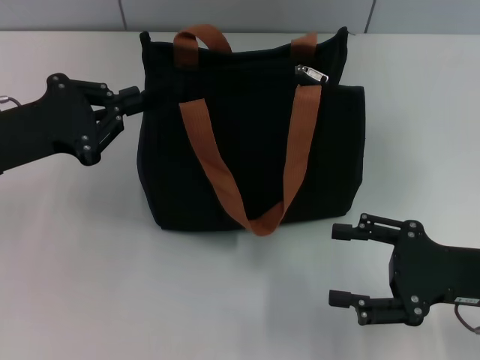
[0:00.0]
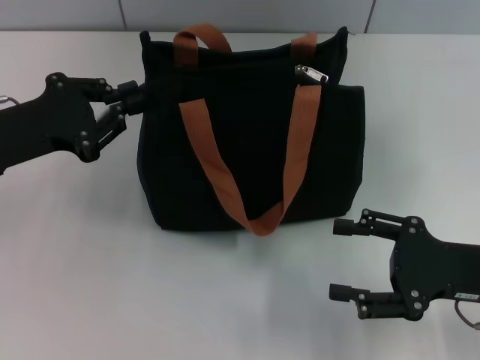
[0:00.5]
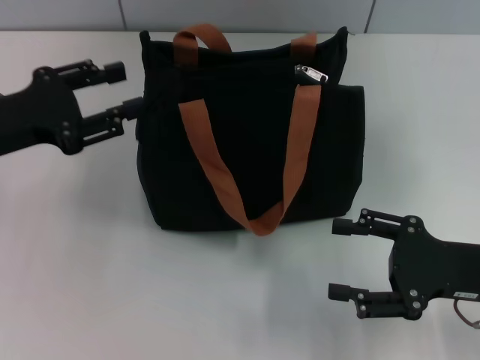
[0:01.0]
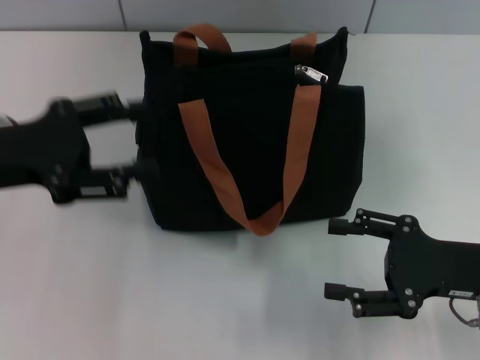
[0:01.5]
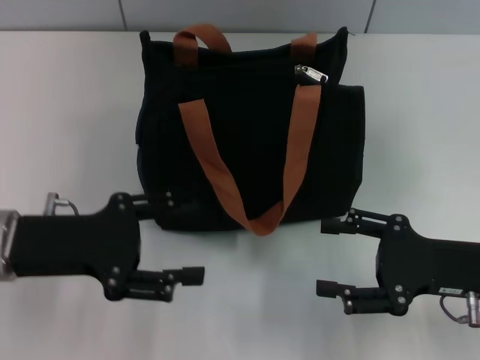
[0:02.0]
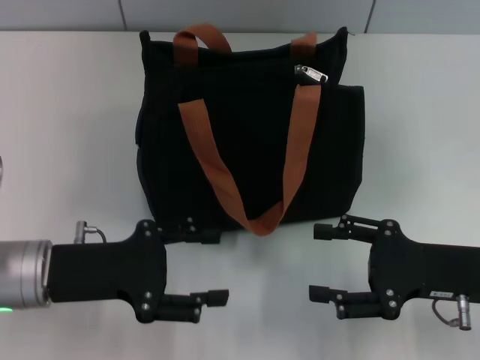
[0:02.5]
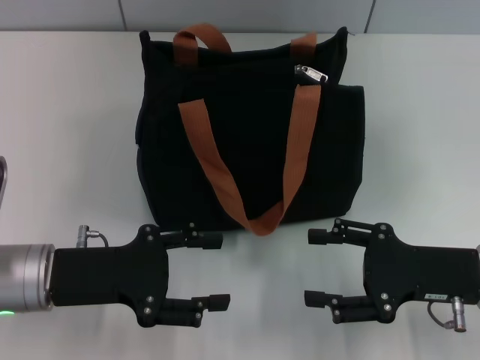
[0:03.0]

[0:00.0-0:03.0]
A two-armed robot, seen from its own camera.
0:00.0 to 0:01.5: The left gripper opens its fingers.
0:01.5 to 0:03.0: The left gripper heads downward and to the right, covering approximately 10 cm.

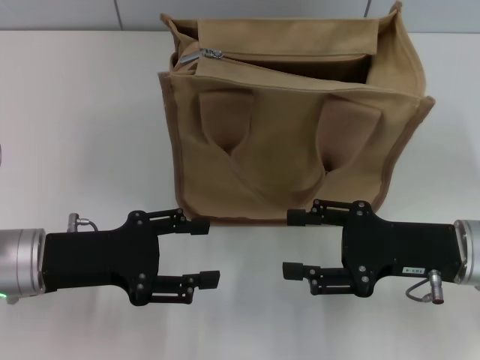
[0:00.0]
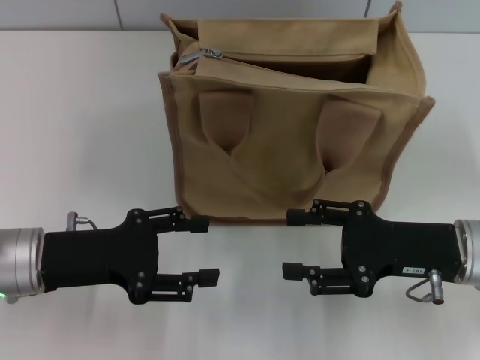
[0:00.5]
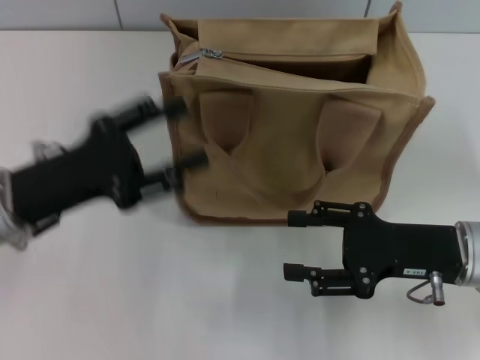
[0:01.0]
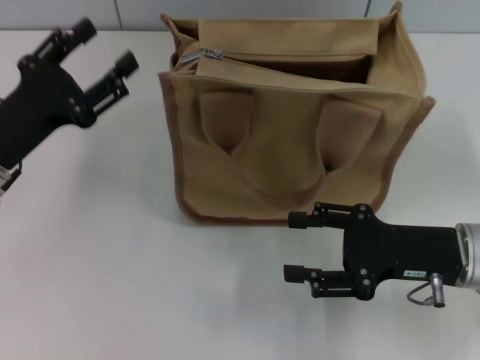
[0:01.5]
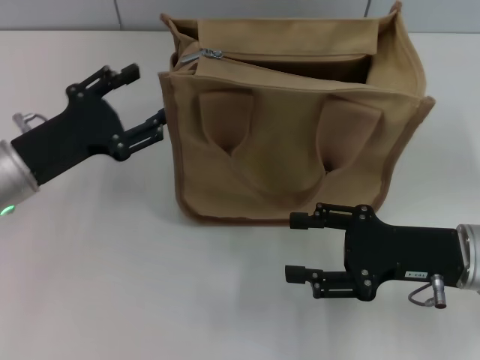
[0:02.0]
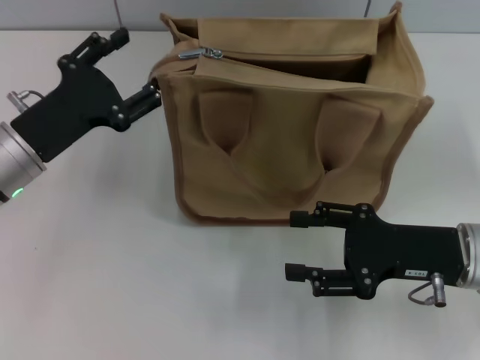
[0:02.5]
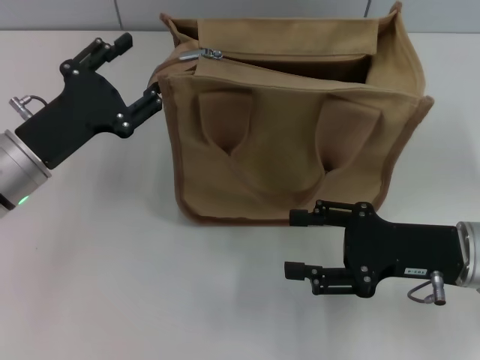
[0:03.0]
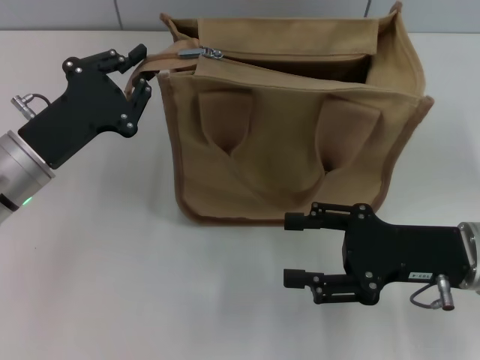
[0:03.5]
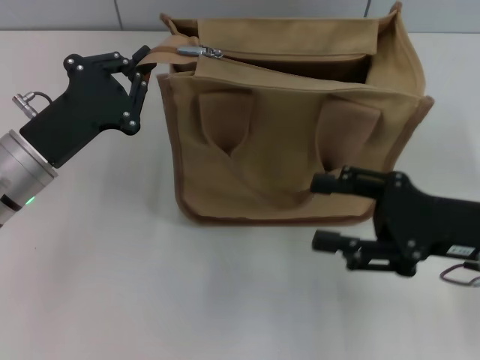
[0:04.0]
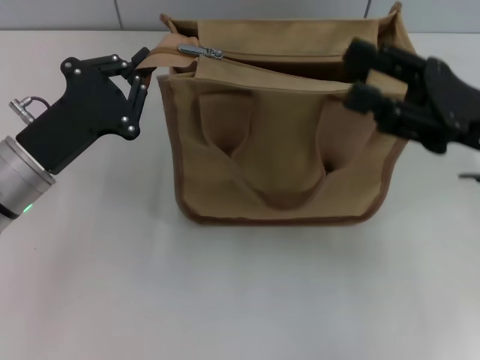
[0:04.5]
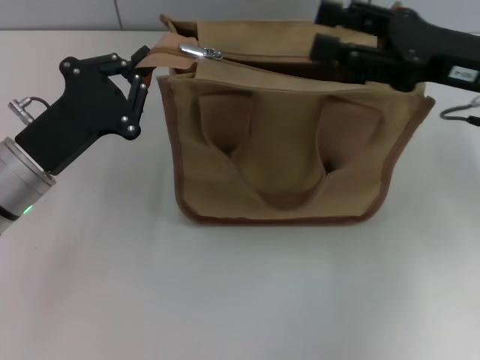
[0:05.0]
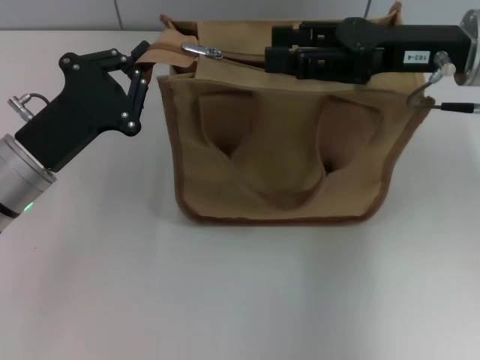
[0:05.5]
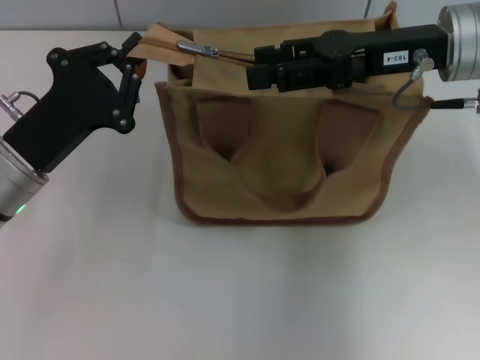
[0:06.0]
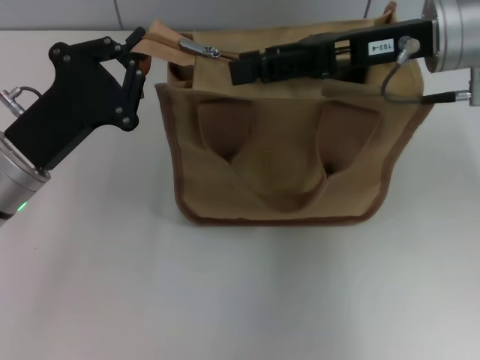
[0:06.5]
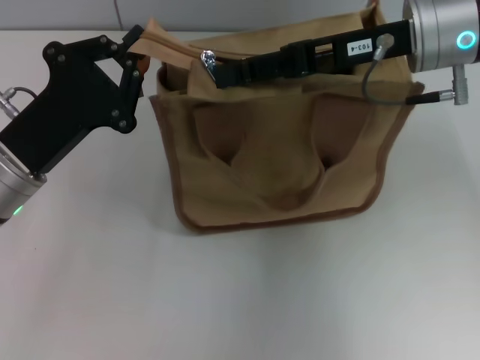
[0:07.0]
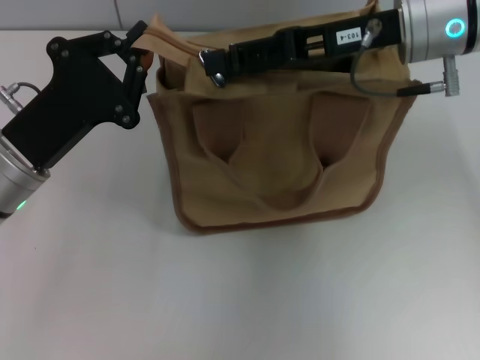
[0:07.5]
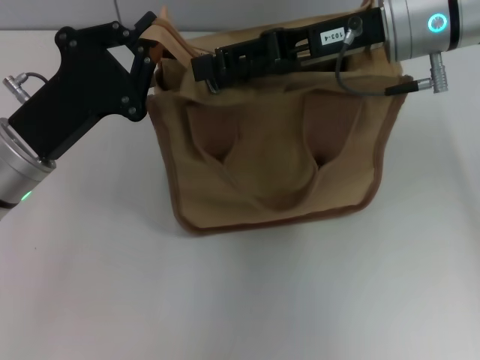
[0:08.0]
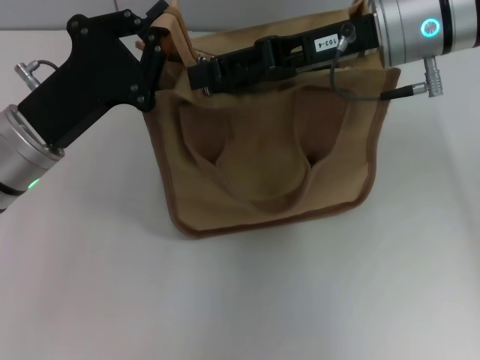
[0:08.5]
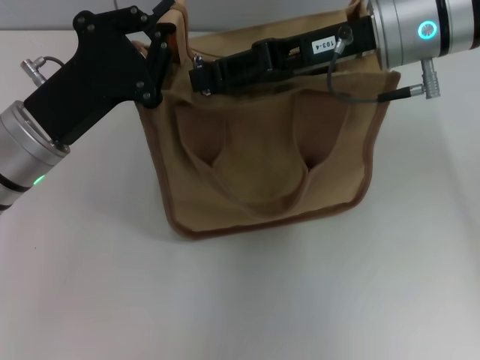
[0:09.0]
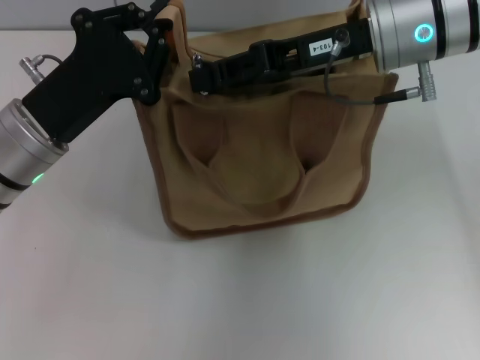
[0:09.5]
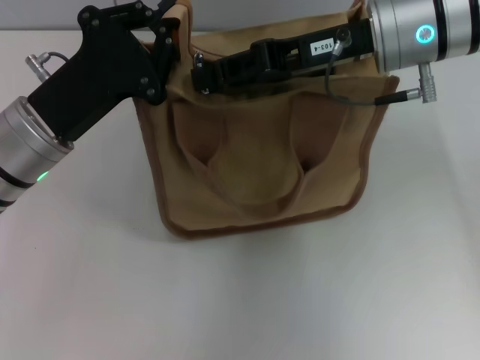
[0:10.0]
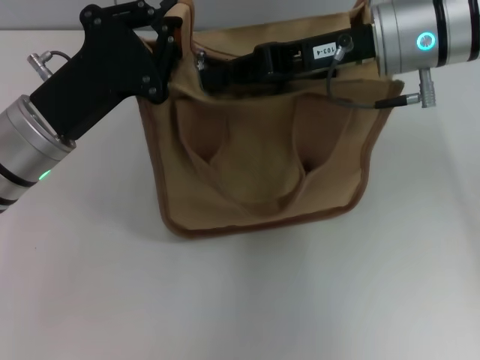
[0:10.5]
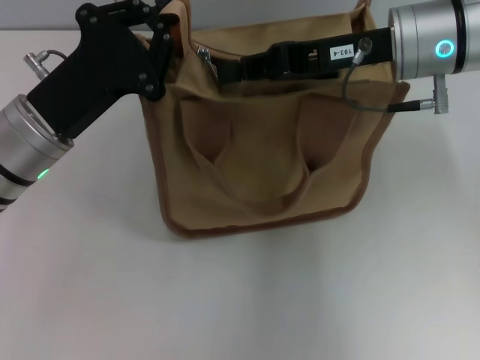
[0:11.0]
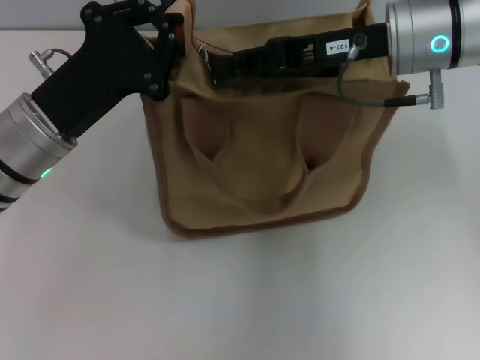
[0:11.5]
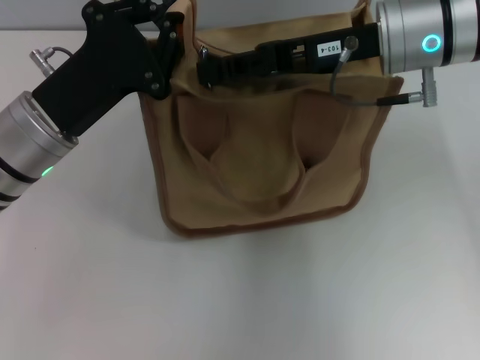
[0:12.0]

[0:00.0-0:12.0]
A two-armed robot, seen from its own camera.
0:00.0 to 0:02.0: The left gripper ends up some 5 cm from where it was.
0:02.0 to 0:04.0: The left gripper closes.
0:04.0 to 0:06.0: The right gripper heads forward, upward and to the left, covering about 15 cm.
0:06.0 to 0:08.0: The right gripper moves some 5 cm.
0:08.0 to 0:10.0: The right gripper closes up.
0:10.0 to 0:12.0: The right gripper closes and opens again.

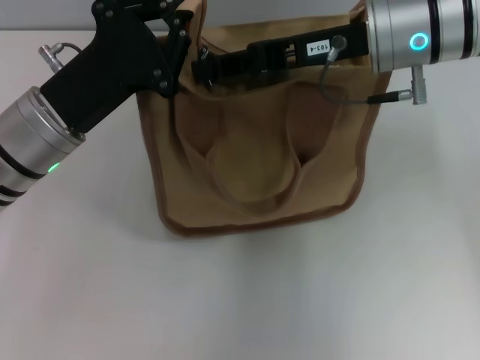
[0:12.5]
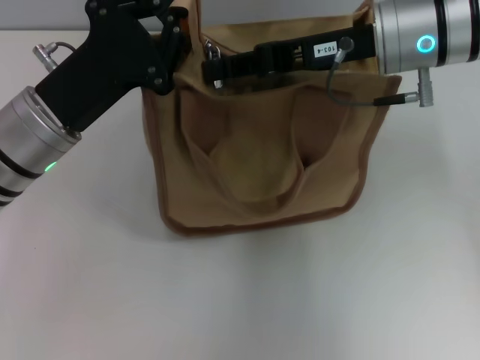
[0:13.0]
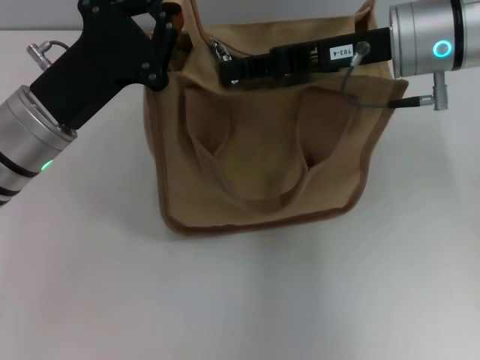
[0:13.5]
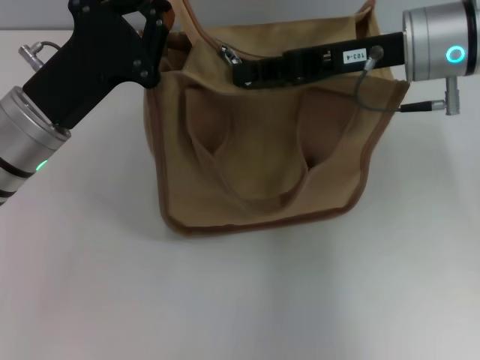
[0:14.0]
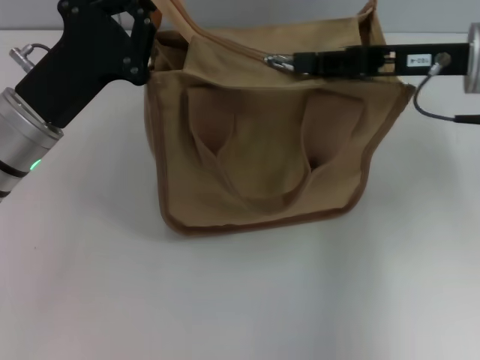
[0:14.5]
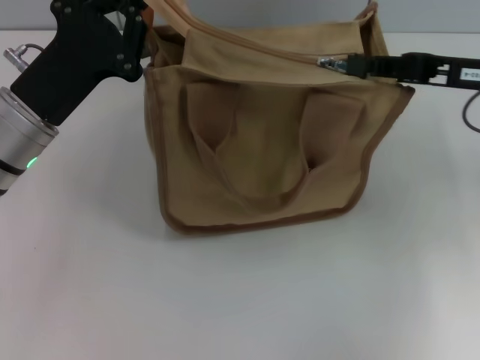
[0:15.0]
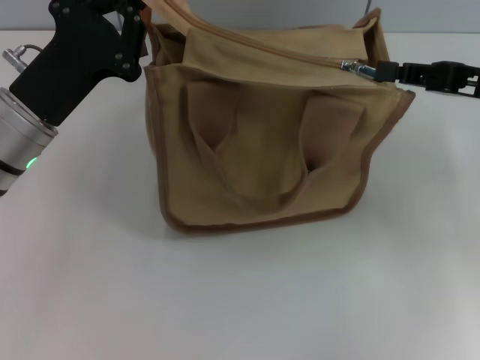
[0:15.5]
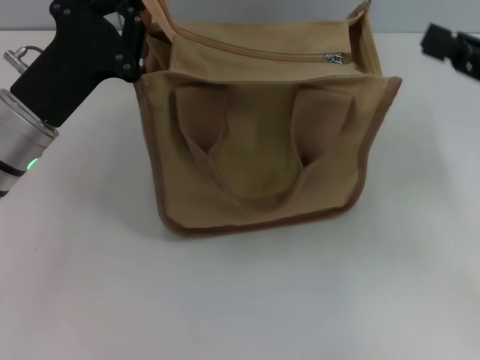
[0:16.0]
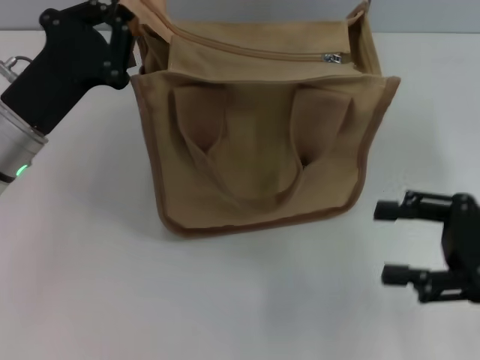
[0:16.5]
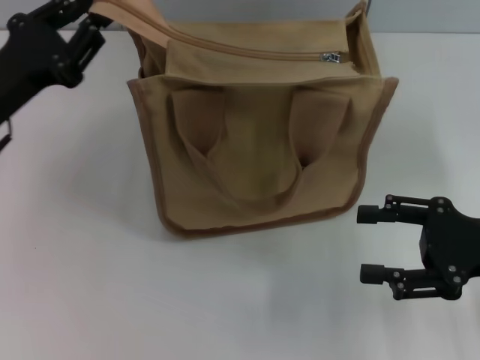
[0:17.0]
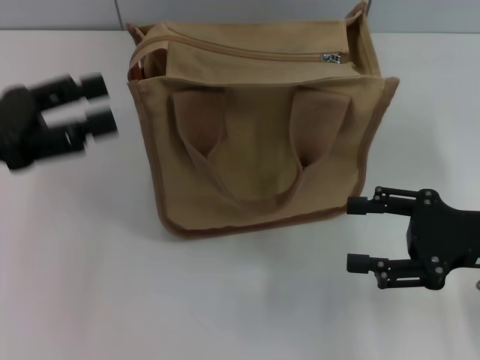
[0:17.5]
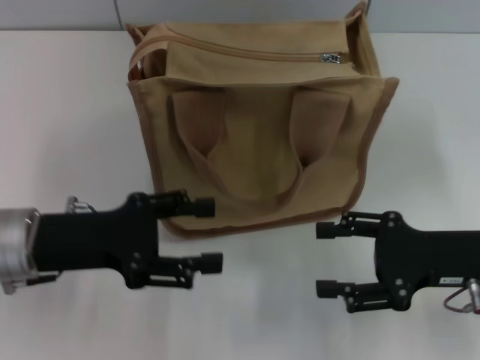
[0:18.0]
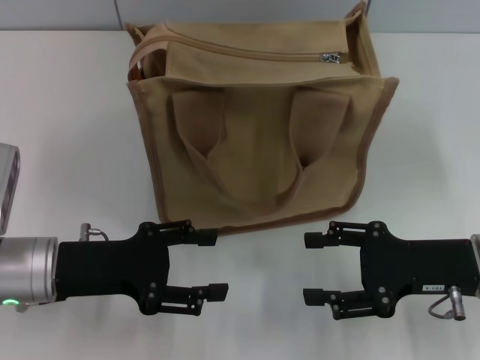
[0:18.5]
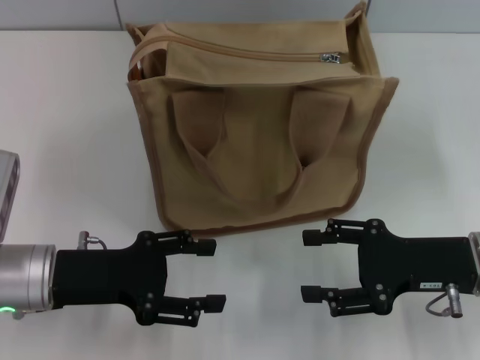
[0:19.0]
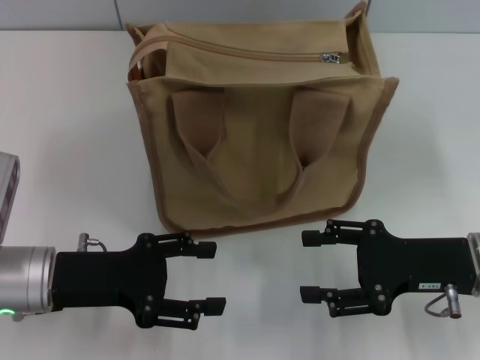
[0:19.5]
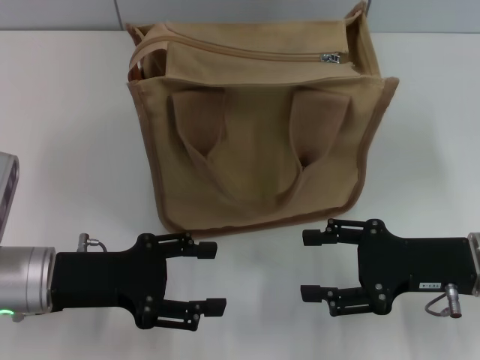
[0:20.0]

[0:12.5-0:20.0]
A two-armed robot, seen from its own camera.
Step, 0:12.5 to 0:15.5: Pull up the zipper with your right hand.
Step, 0:16.0 to 0:17.5: Grab the zipper with your left hand.
0:12.5 to 0:14.5: The right gripper heads to the right, covering approximately 10 cm.
0:14.5 to 0:16.5: The right gripper is displaced backward, to the right and downward by roughly 15 cm, and opens its fingers.
0:16.5 to 0:18.0: The left gripper moves backward, some 5 cm, reaches roughly 10 cm to the left, then returns, and opens up; the right gripper moves some 5 cm.
0:18.0 to 0:20.0: The grippers make only small movements.

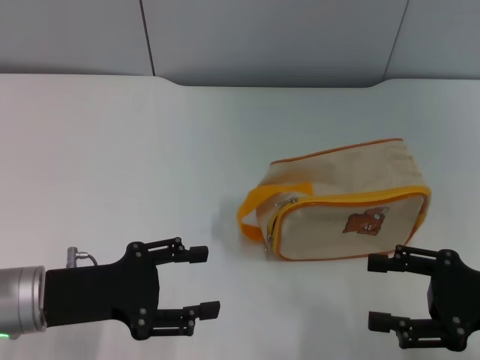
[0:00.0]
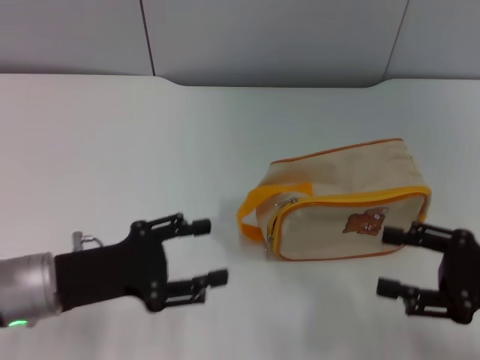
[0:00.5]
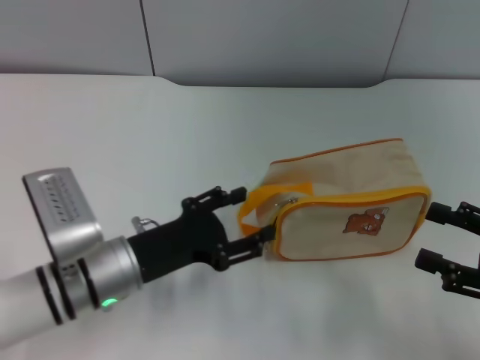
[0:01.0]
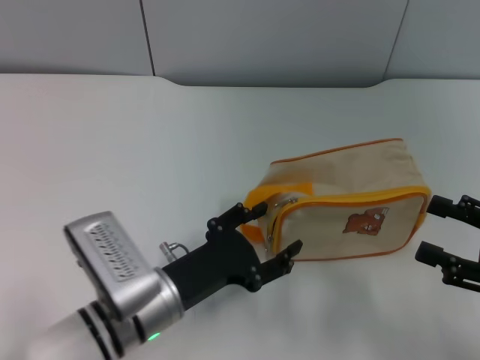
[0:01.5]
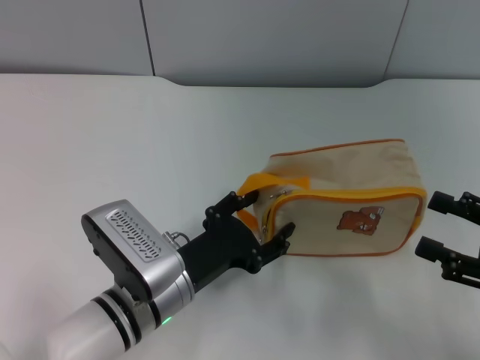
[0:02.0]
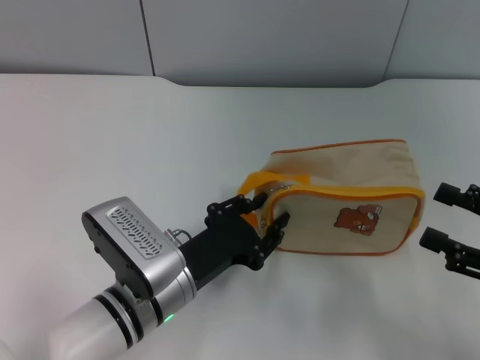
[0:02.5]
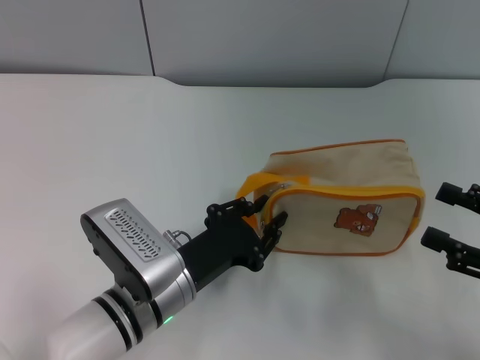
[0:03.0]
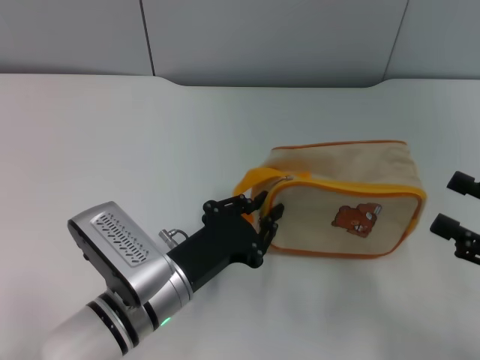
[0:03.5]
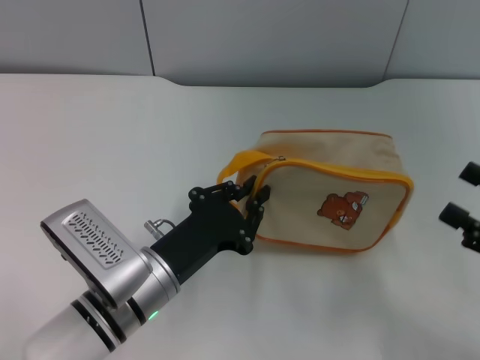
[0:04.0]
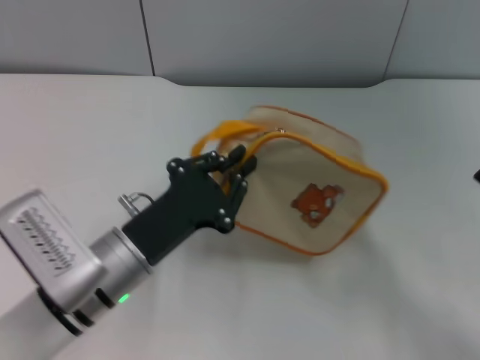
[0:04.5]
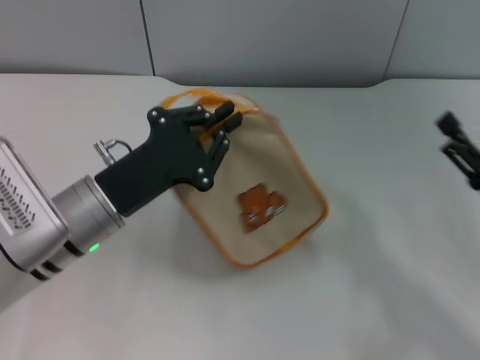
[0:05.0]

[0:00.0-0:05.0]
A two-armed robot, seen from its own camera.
0:00.0 to 0:02.5: The left gripper travels to the right and downward by some 15 cm.
0:02.5 to 0:05.0: The left gripper moves upward and to the left, about 10 cm, and closes its fingers. The right gripper ends up some 5 cm from where it was.
